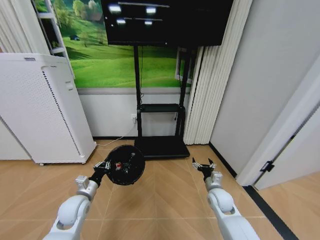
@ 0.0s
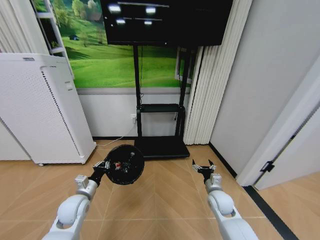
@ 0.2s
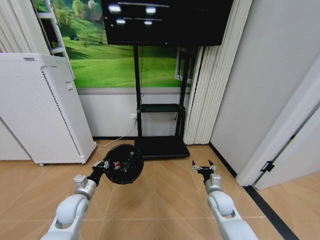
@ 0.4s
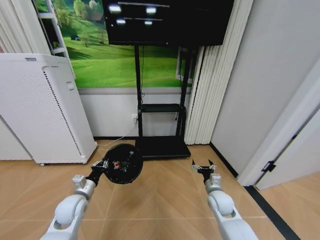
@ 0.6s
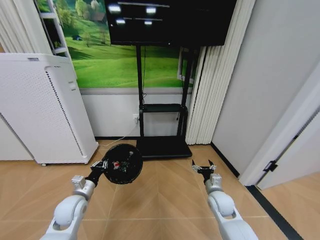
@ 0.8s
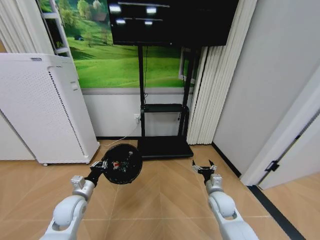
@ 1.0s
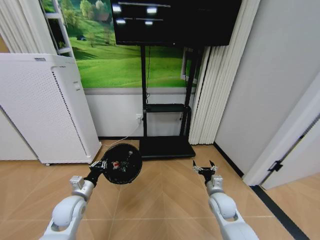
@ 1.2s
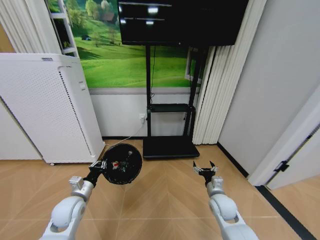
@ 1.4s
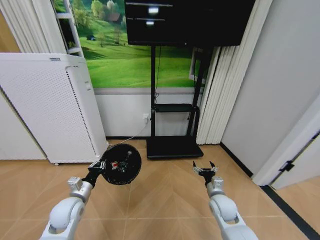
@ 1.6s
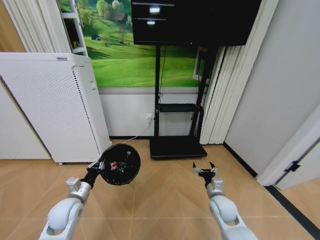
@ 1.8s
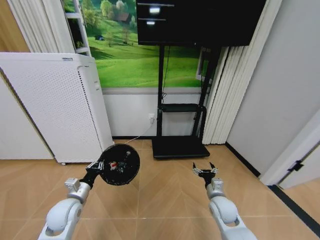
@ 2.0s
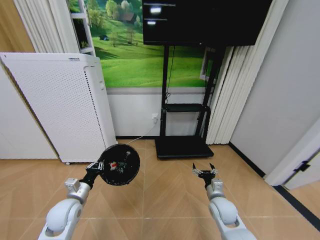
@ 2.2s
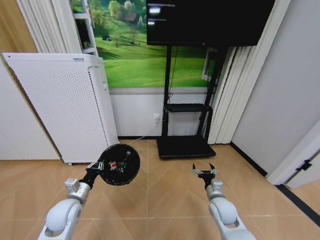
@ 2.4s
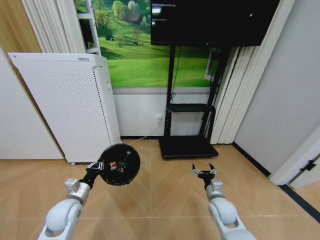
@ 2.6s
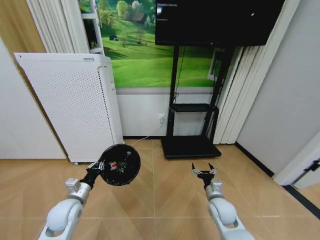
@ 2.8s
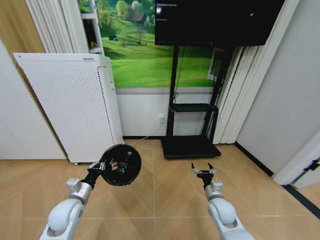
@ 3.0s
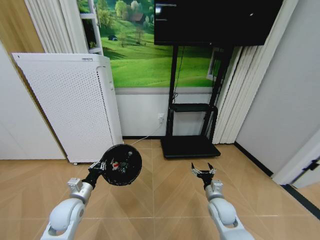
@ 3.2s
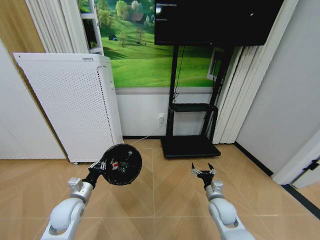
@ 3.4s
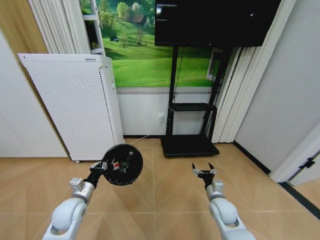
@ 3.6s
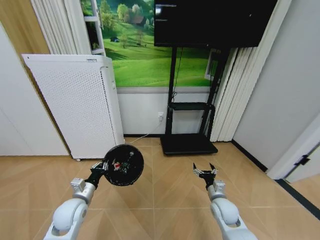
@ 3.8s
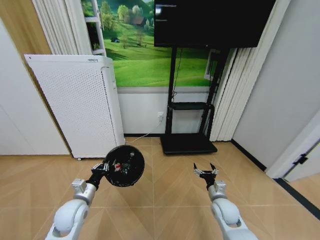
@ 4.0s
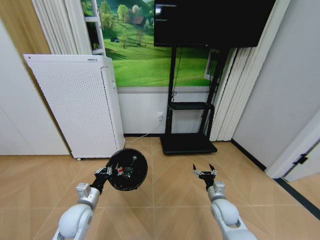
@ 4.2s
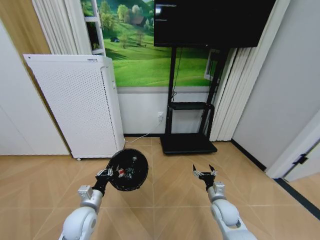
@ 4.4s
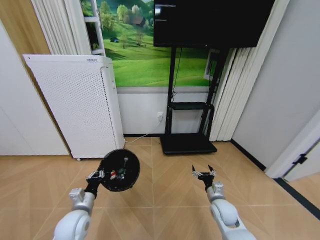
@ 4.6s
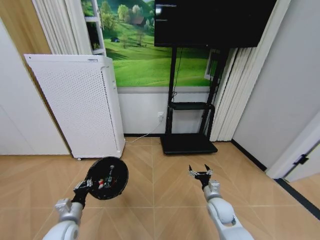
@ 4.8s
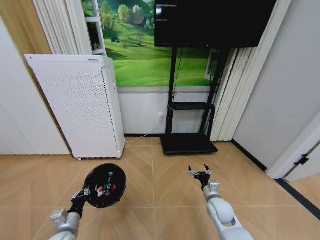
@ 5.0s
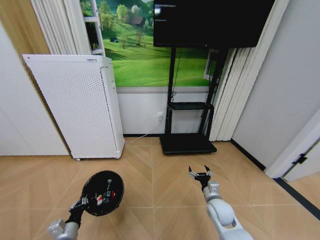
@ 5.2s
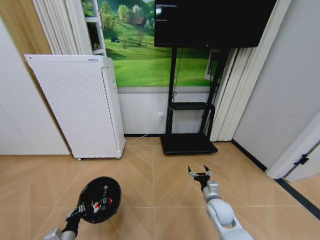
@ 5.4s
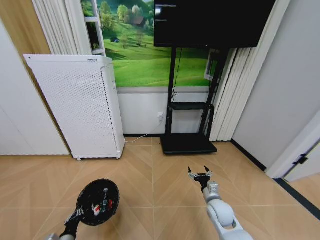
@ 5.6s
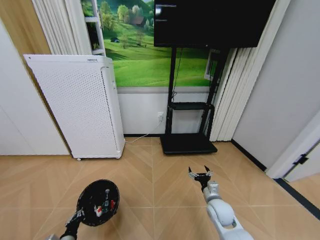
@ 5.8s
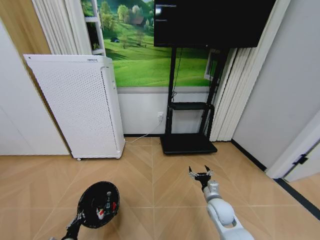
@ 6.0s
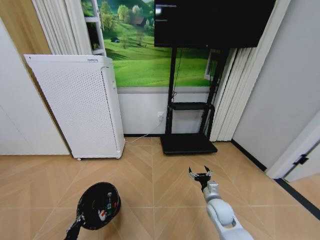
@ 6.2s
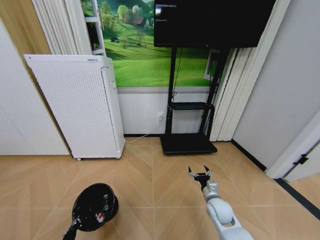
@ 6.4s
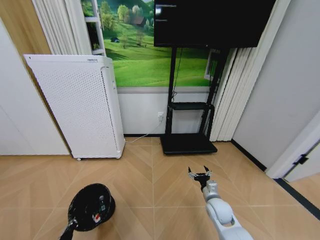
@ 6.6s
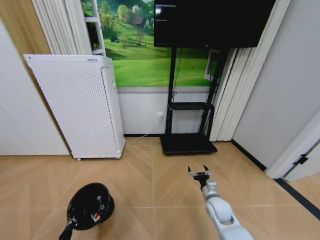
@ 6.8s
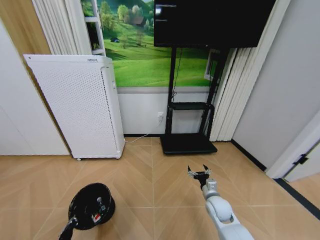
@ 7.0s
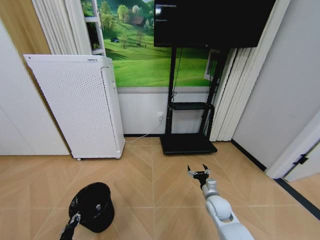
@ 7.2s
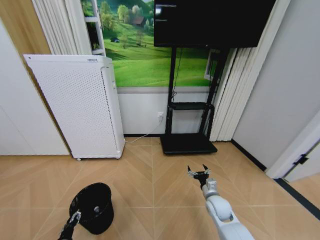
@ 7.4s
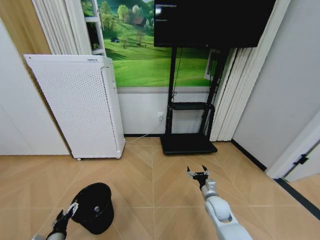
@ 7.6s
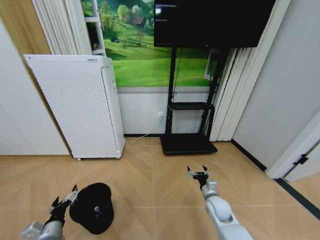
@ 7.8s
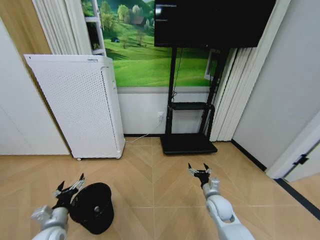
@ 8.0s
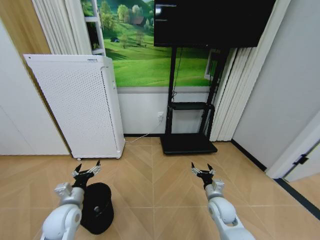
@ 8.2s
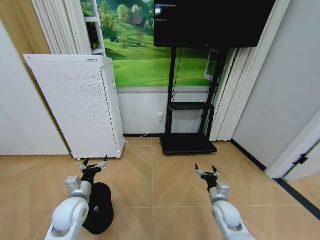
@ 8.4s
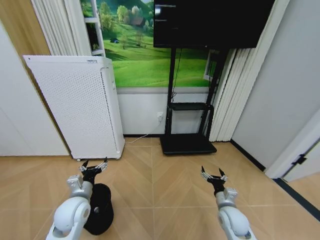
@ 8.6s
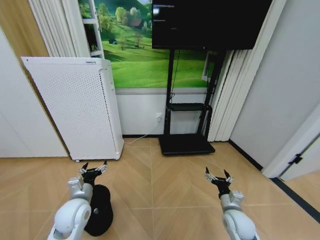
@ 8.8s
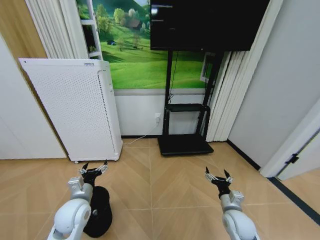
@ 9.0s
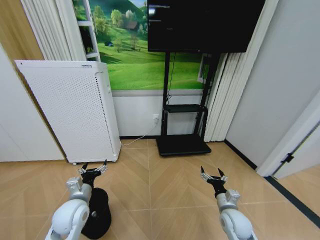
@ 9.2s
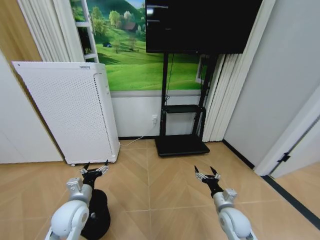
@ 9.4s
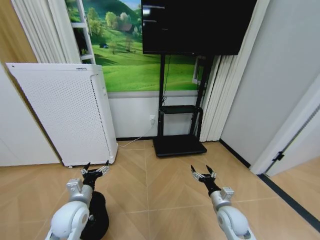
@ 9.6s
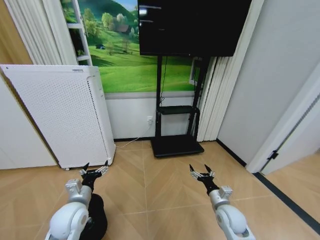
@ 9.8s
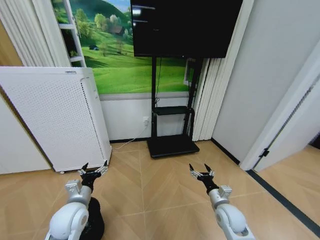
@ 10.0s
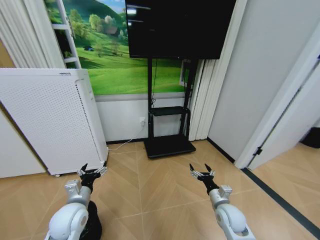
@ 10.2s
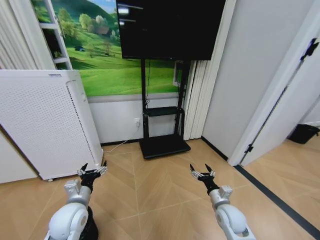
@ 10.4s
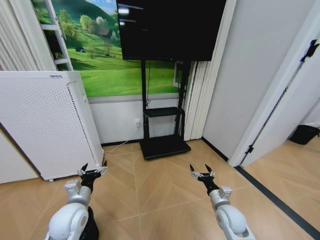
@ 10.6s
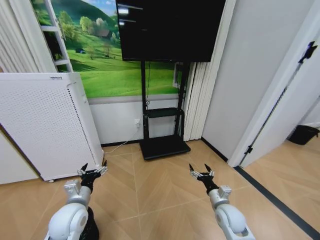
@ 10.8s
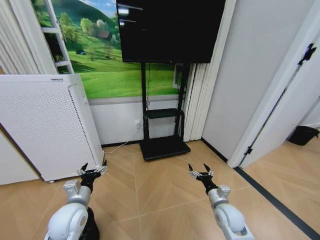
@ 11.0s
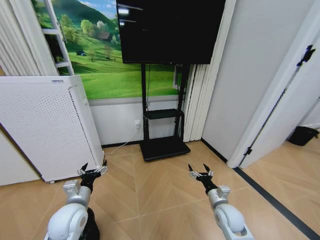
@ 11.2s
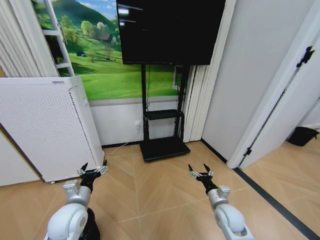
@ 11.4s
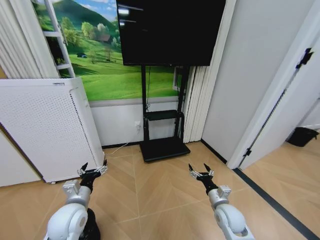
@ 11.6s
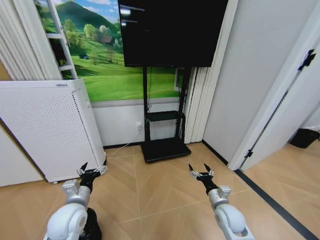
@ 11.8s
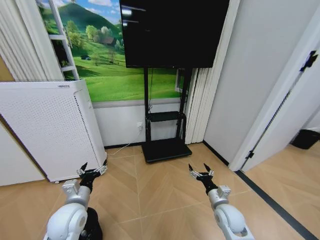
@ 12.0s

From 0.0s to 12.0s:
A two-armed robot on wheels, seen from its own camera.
Task of the whole recording: Pick up the trash bin and place the garbage on the floor into it.
From 3.0s to 4.4s: The left gripper shifts roughly 5 cm to the right.
From 4.4s to 6.0s: The left gripper is displaced downward, backward and to the left by some 20 cm.
From 6.0s to 7.6s: The left gripper opens.
From 7.6s to 9.0s: The right gripper is displaced backward by some 5 cm. The left gripper travels upward, forward and to the right by some 20 cm.

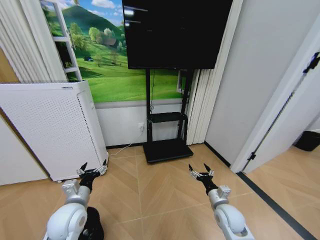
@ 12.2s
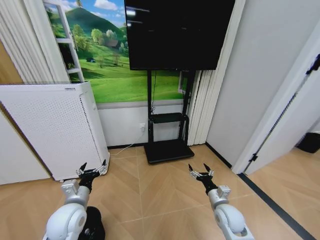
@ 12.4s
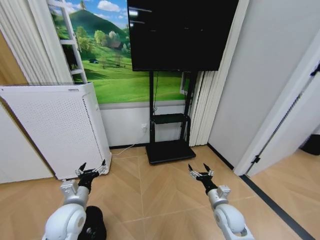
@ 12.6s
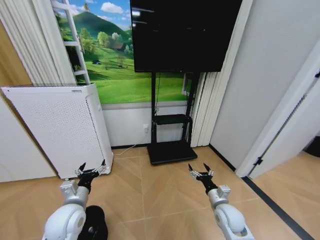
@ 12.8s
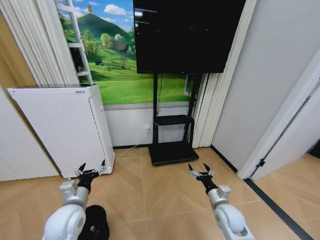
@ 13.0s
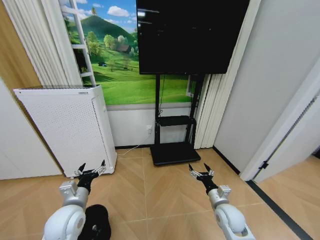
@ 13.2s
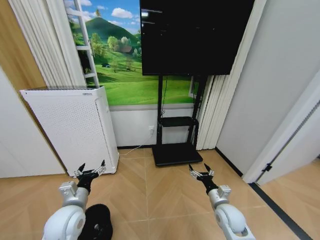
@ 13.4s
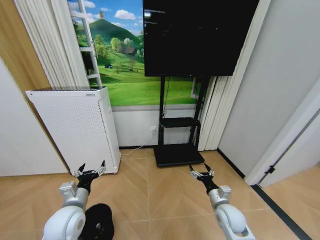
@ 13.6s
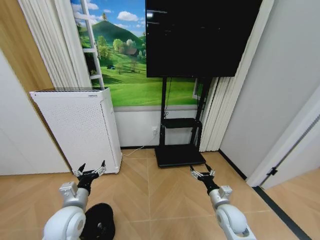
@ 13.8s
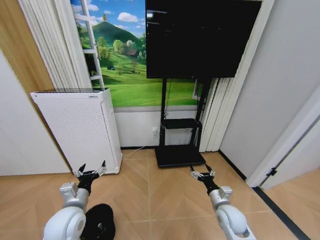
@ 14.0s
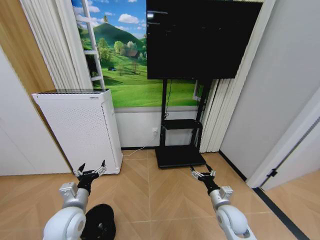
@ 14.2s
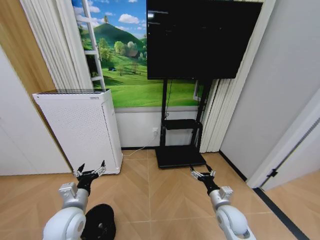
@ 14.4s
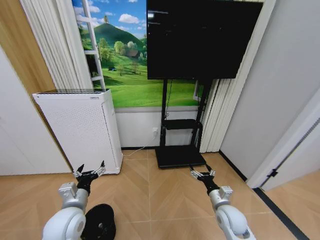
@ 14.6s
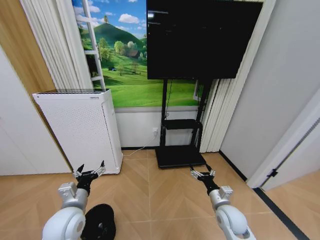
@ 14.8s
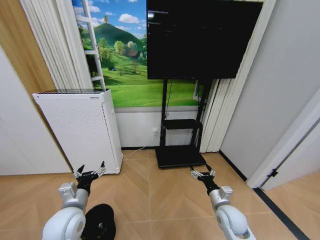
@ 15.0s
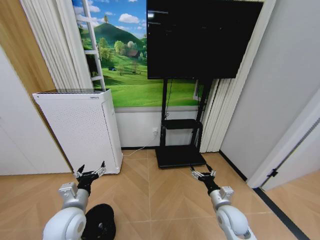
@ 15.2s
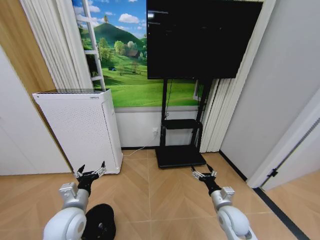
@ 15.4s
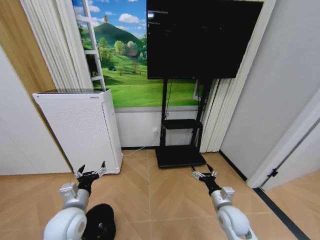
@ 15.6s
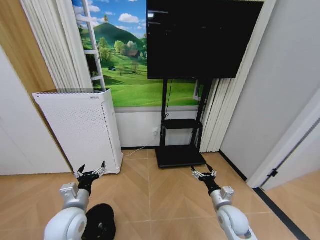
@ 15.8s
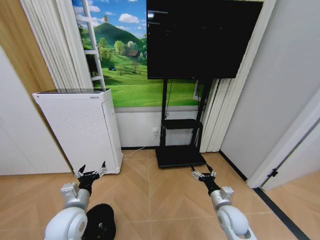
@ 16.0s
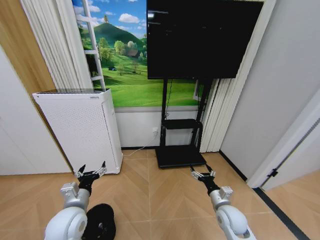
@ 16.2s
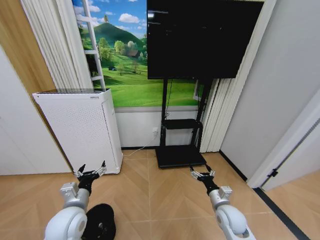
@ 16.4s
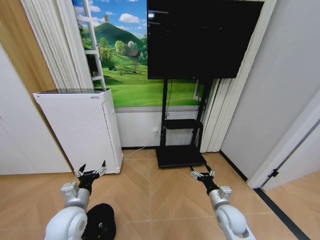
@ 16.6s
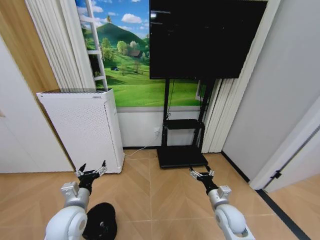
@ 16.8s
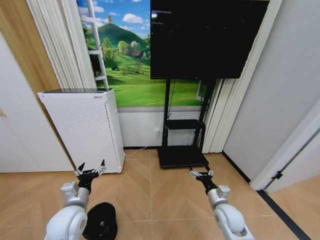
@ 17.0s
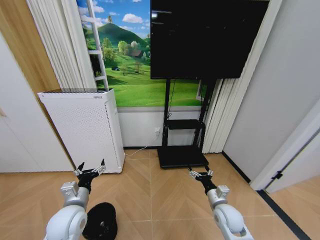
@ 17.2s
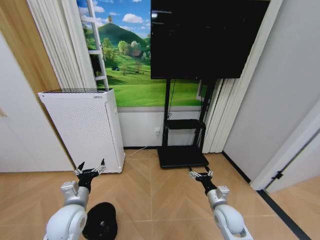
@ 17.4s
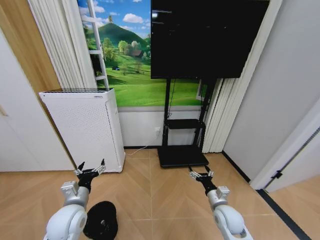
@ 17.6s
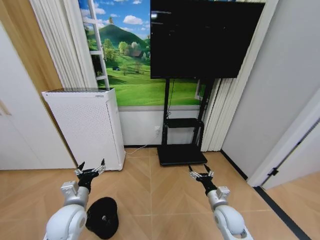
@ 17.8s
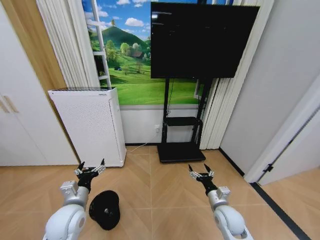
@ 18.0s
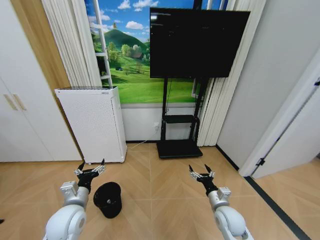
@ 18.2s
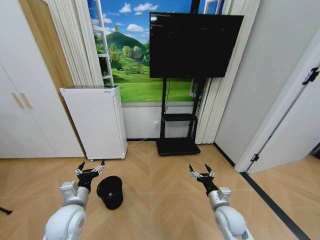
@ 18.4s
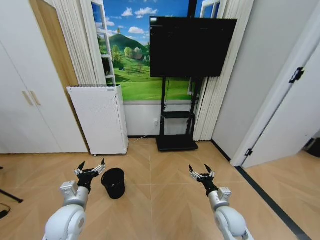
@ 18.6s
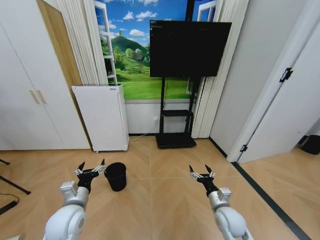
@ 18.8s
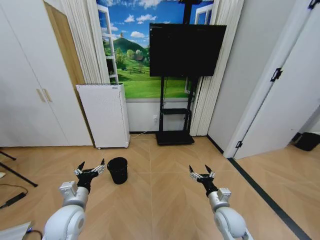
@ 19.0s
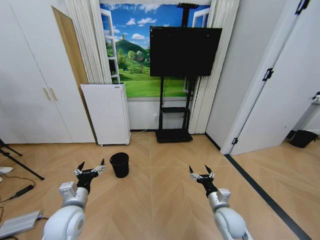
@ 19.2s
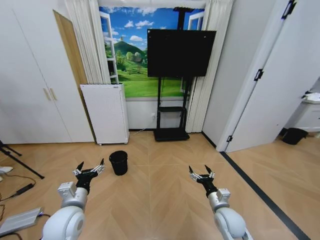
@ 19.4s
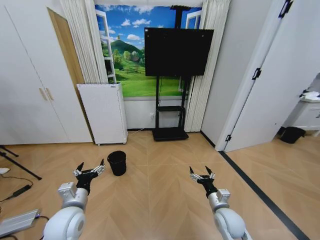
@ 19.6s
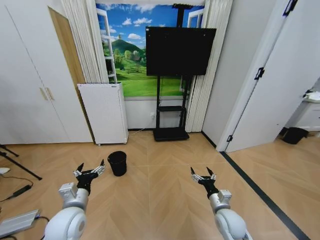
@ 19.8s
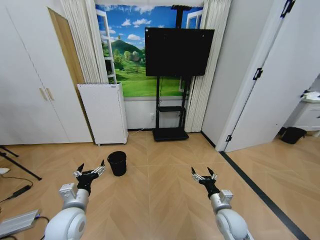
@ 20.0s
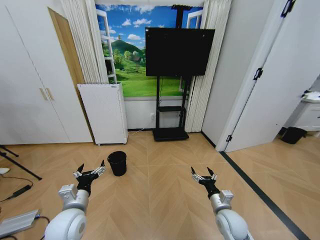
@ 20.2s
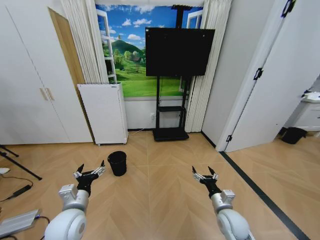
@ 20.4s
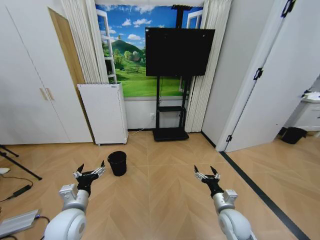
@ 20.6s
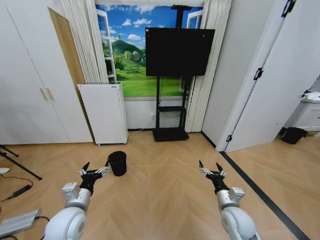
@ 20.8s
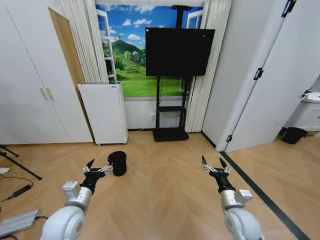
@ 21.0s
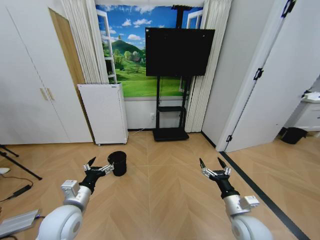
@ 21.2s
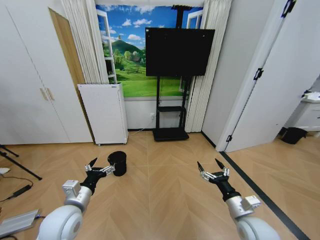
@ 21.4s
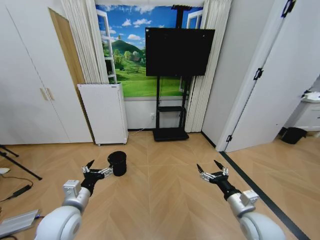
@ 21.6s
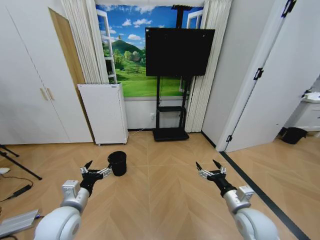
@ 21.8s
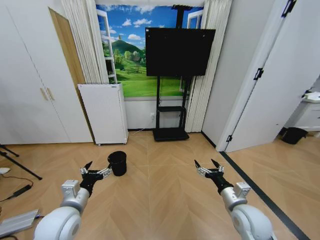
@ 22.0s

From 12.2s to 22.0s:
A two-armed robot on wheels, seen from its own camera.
Task of the whole recording: Pick up the trash bin and place the garbage on the floor into it.
From 13.6s to 17.8s: Both grippers stay put.
From 19.2s to 20.6s: There are only small adjustments of the grippers.
From 20.6s to 22.0s: The right gripper shifts about 5 cm upward.

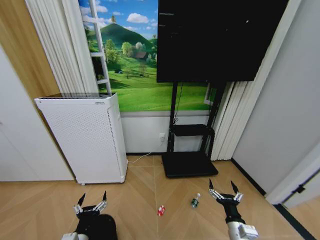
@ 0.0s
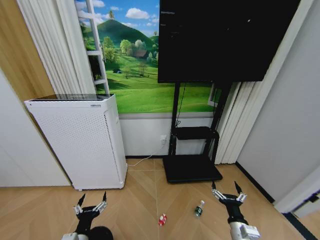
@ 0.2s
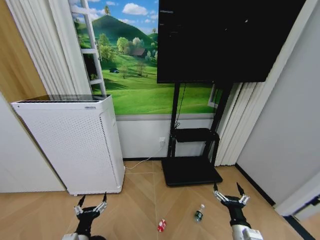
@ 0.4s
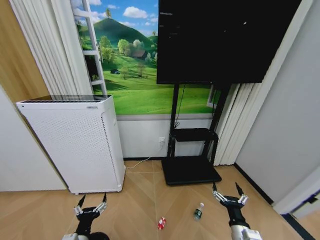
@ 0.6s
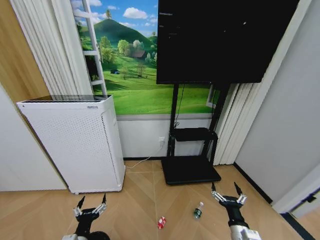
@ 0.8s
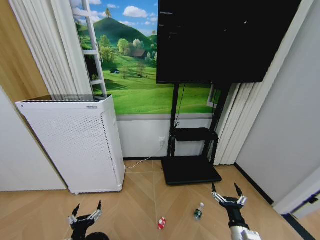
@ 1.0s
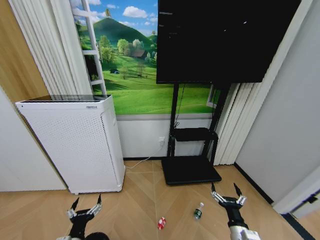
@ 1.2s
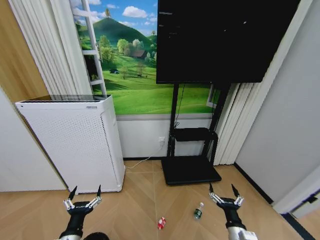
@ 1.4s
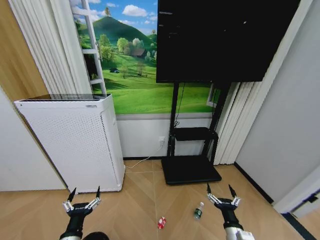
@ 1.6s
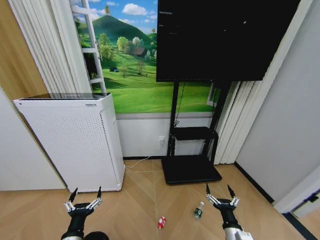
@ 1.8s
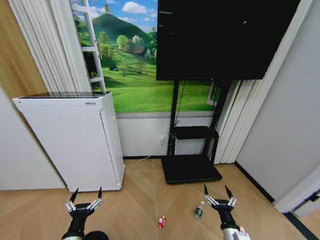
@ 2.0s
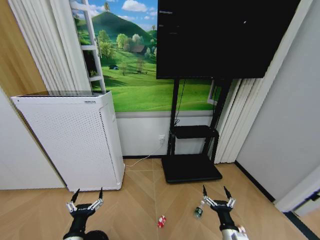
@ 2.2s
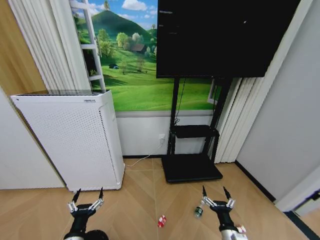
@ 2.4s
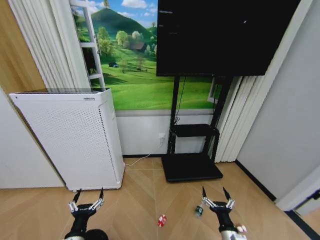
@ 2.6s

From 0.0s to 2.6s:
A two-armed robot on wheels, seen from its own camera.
Task of the whole recording: Pick up the trash bin and place the garbage on the floor into it.
From 1.2s to 2.6s: The grippers stay close to where they were, moving slightly.
